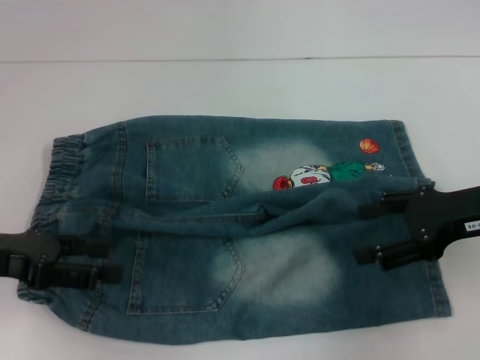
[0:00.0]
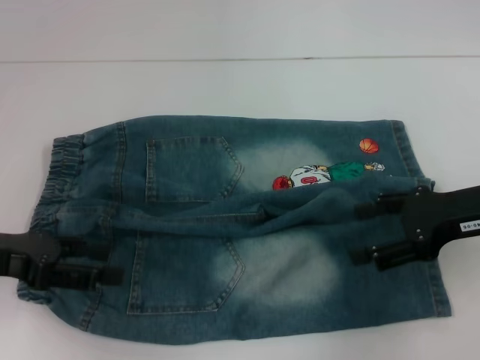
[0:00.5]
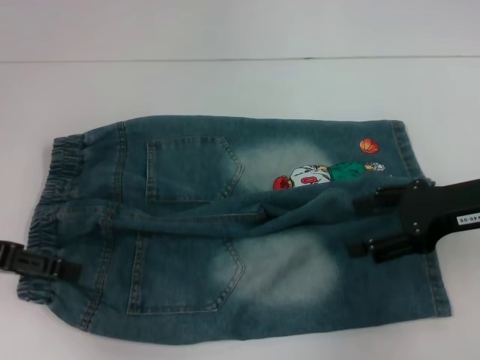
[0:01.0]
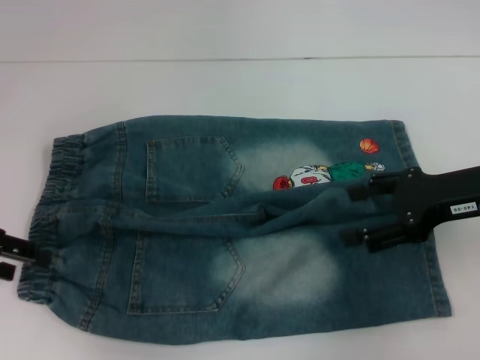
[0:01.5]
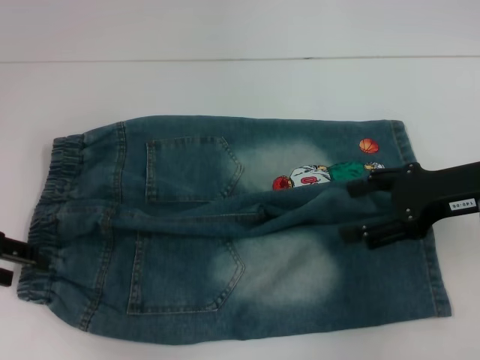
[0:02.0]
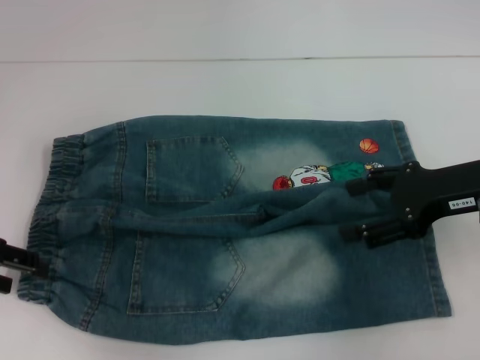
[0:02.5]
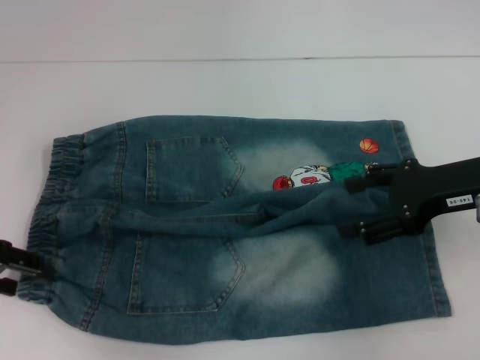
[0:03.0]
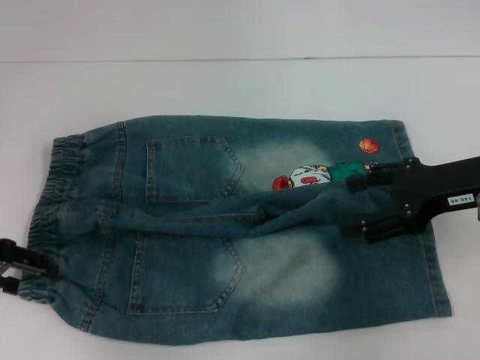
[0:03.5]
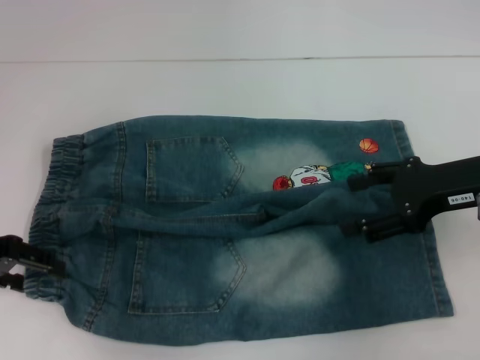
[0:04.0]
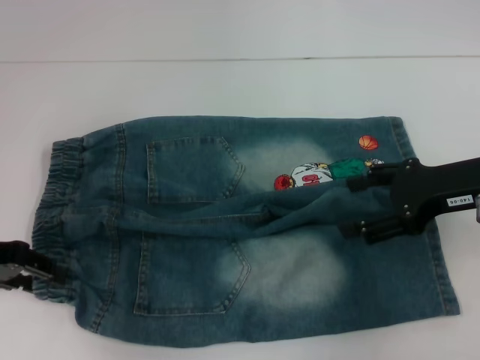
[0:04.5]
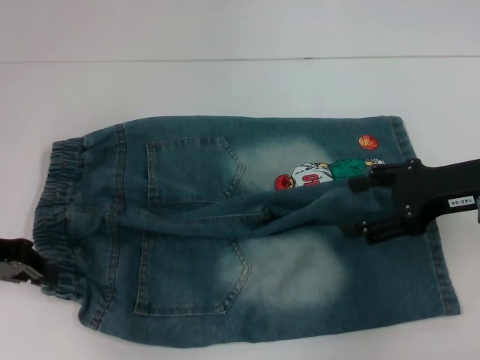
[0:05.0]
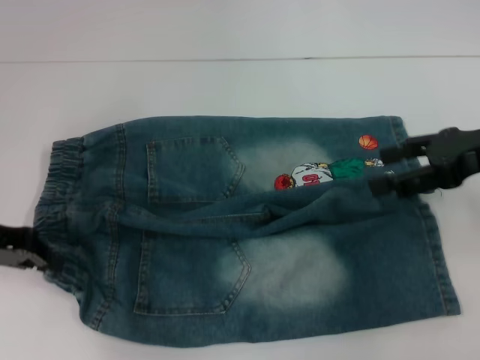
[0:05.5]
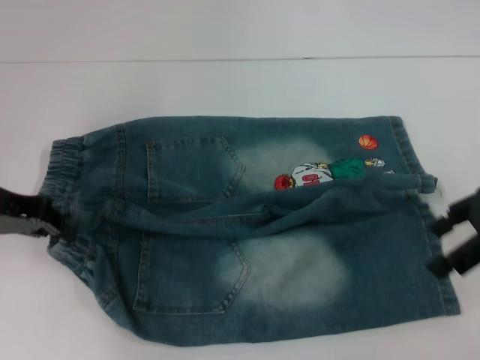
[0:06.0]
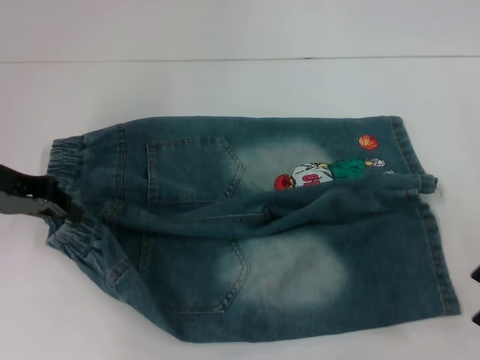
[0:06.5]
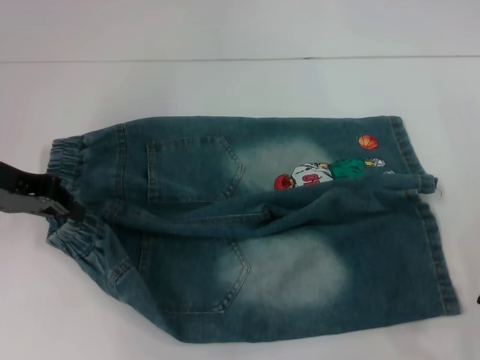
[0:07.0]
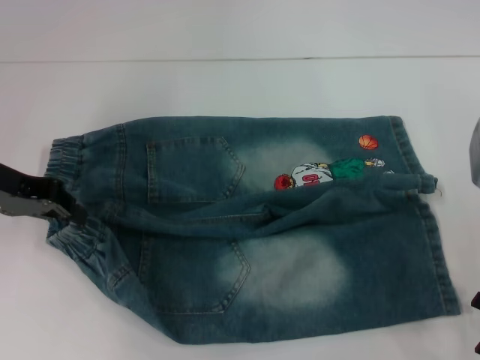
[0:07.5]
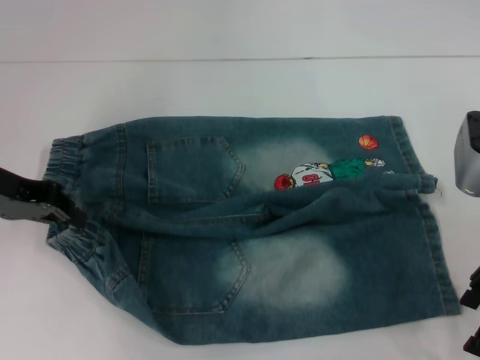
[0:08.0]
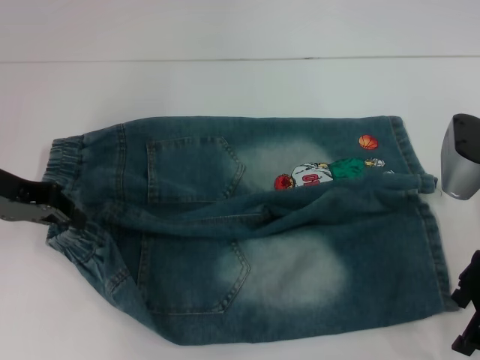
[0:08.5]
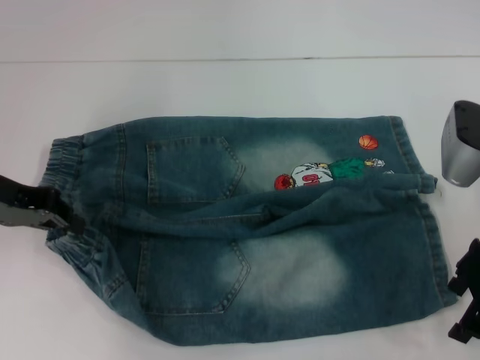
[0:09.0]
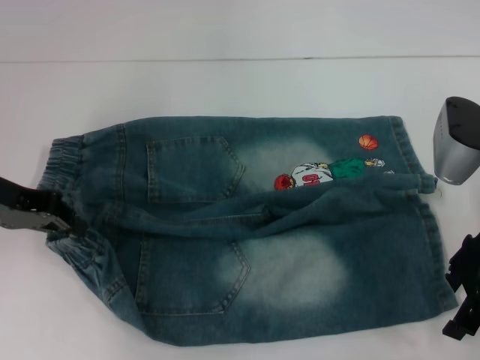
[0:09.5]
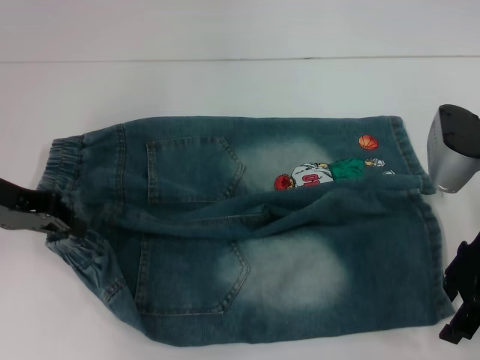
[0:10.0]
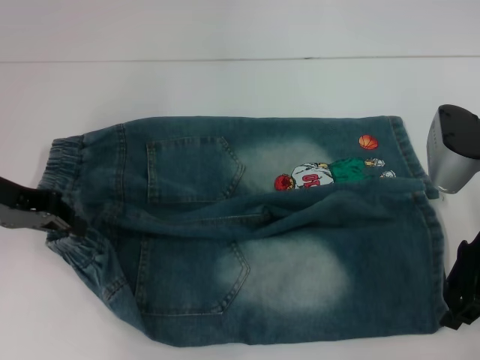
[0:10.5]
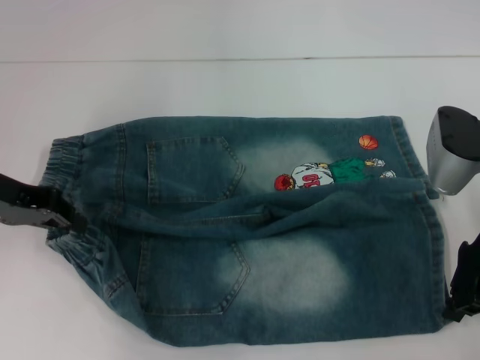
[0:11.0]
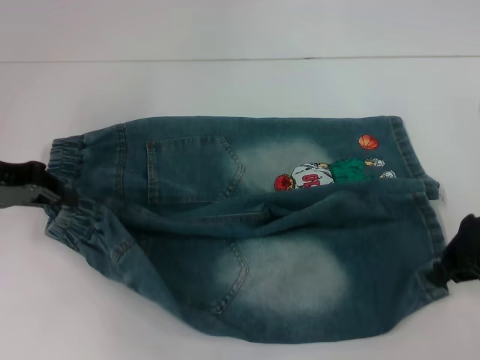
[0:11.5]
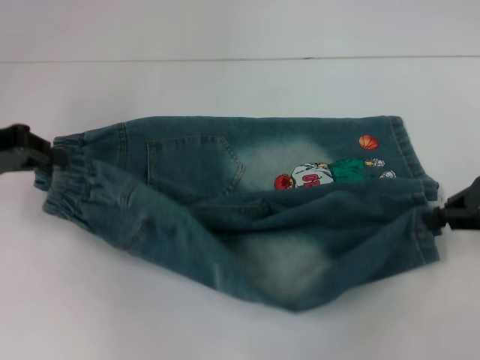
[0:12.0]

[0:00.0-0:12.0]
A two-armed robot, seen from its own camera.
Step, 0:00.0 to 0:04.0: Hold the lower left waistband with your left hand.
Step, 0:04.5 to 0:10.5: Grab the lower right pant leg with your right hand.
0:00.0 to 0:02.0: The left gripper shifts by about 5 cm.
0:02.0 to 0:04.0: The grippers move only a little.
0:04.0 to 0:06.0: The right gripper shifts by some 5 cm. The left gripper closes.
0:06.0 to 0:08.0: The right gripper shifts by approximately 5 cm.
0:08.0 to 0:10.0: There are only small adjustments of the grippers.
0:10.0 to 0:12.0: The right gripper travels to the right by about 10 cm, and closes up.

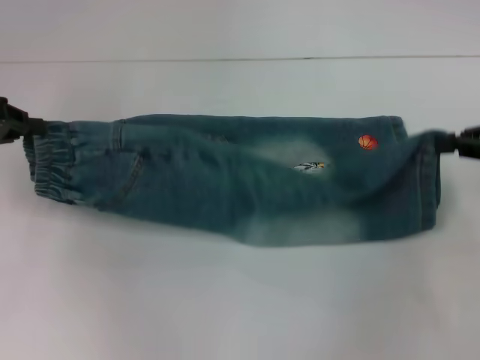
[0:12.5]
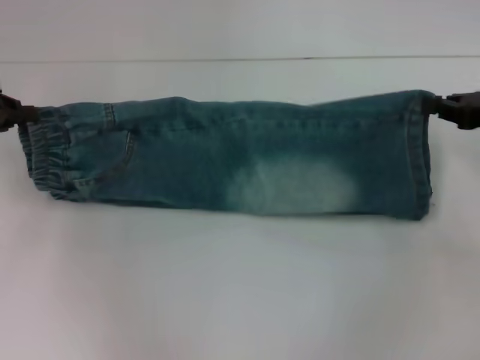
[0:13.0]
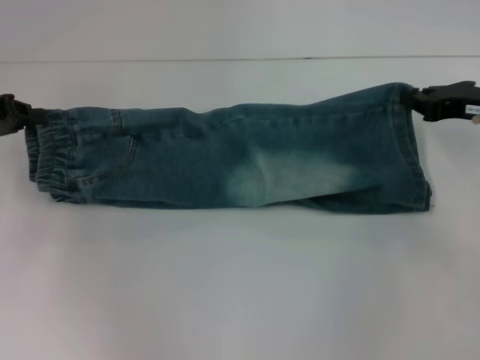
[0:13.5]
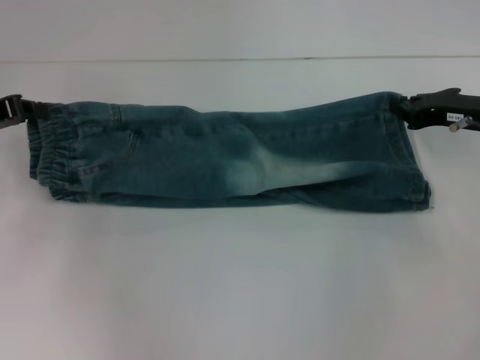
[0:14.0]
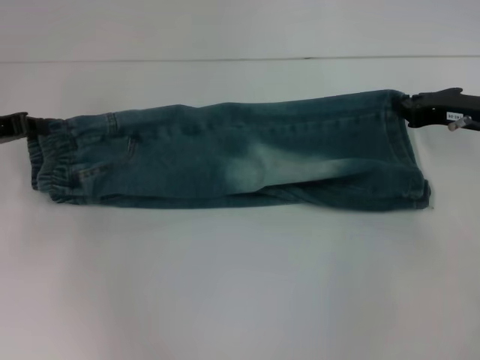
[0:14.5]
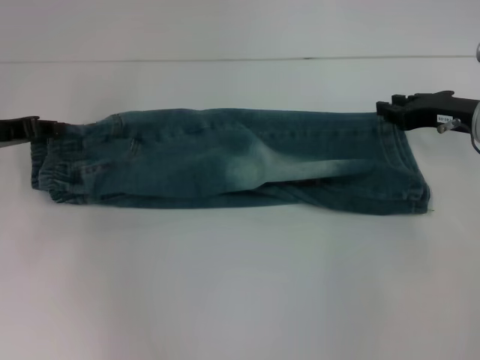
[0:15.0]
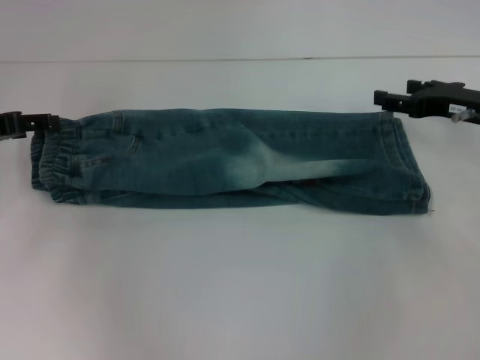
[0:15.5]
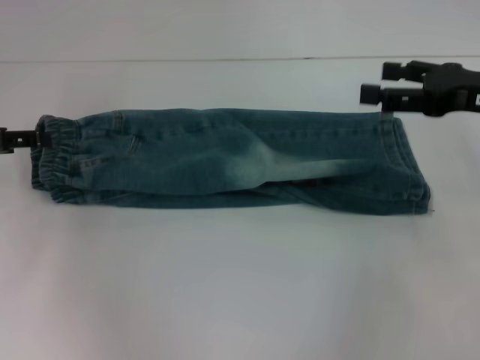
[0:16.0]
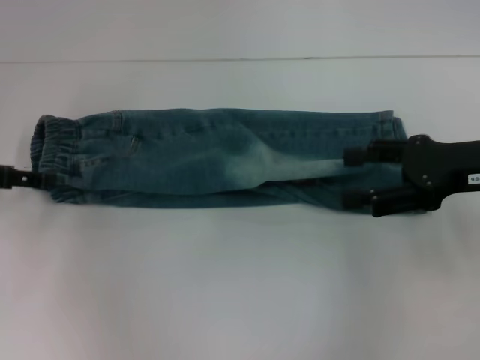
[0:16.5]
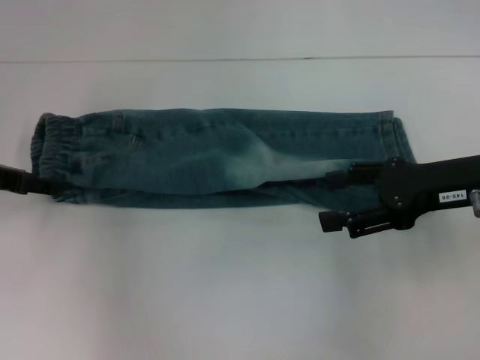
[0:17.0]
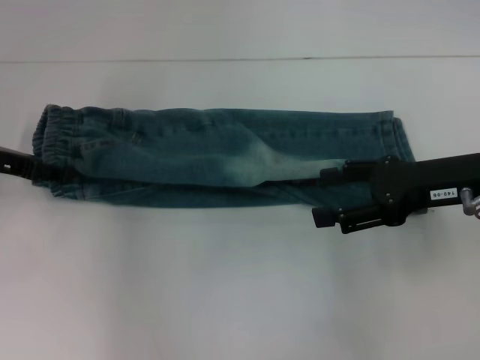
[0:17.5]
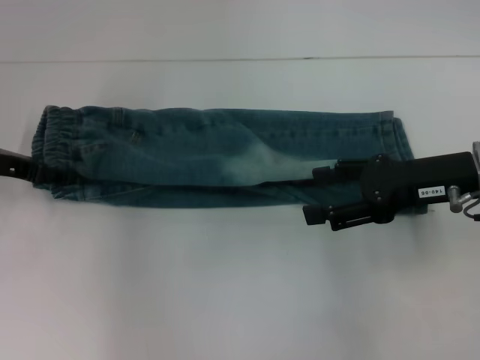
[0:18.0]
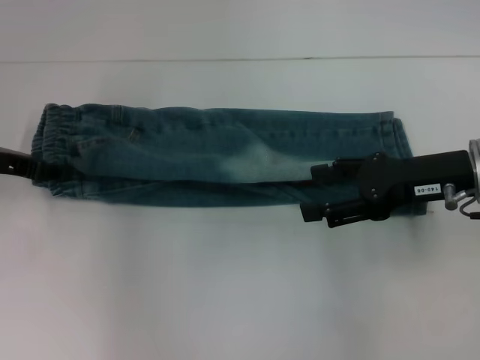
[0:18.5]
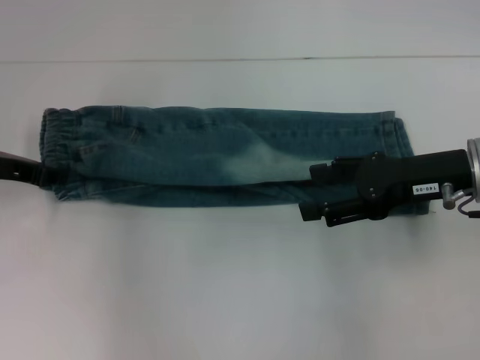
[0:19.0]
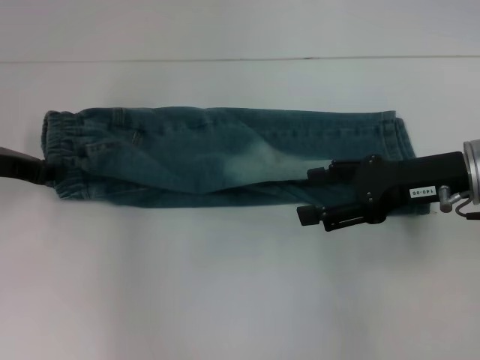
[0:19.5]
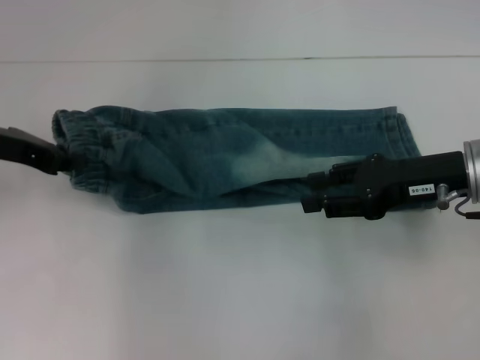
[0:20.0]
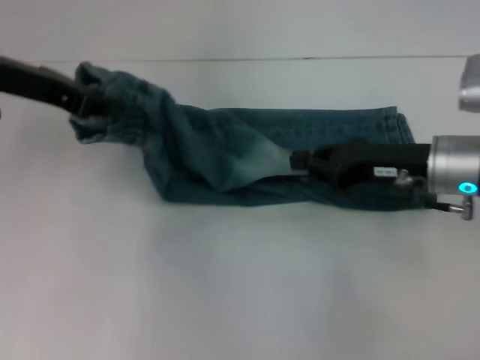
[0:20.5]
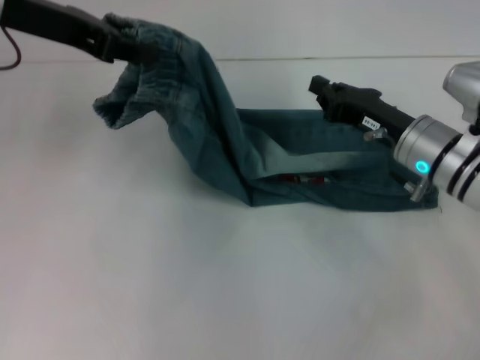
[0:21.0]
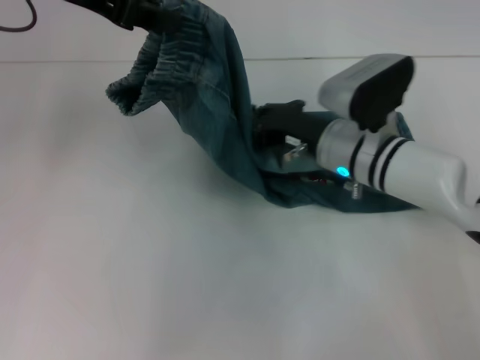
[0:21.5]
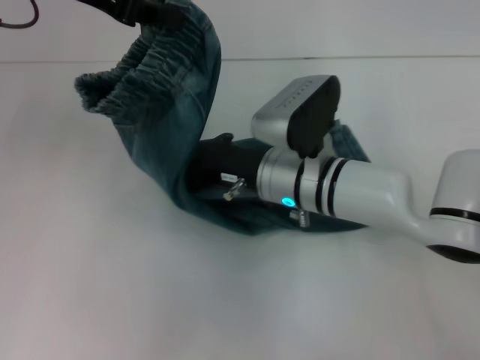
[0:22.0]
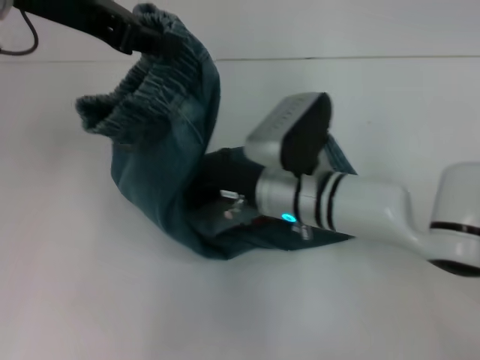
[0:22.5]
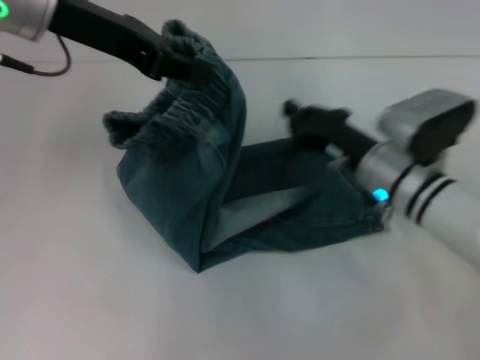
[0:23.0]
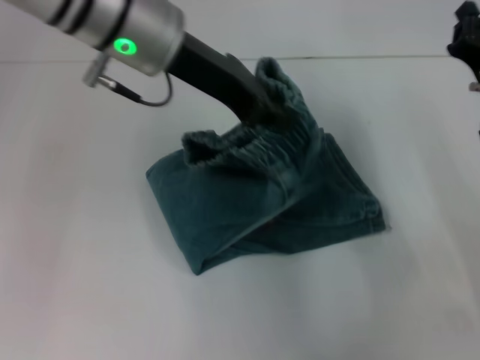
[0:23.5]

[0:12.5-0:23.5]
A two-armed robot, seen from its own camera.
Step, 0:12.5 to 0:15.0: Fold upward with your right hand.
Step, 0:15.5 to 0:18.0: Hold the waistband with your left hand.
Step, 0:18.5 to 0:22.5: Press the middle of the pants with your right hand.
0:12.5 to 0:14.5: The left gripper changes place by roughly 5 cm. The right gripper moves downward, to the left and forward, about 10 cm.
0:14.5 to 0:16.0: The right gripper goes roughly 5 cm upward, and opens its fingers. Meanwhile the left gripper opens up.
0:16.0 to 0:18.0: The right gripper heads to the left, covering approximately 5 cm. The left gripper changes place by about 5 cm.
0:18.0 to 0:20.0: The left gripper travels upward by approximately 5 cm, and closes.
0:20.0 to 0:21.5: The right gripper heads to the left and downward, covering roughly 15 cm, and closes up, while the left gripper goes approximately 15 cm upward and to the right.
0:21.5 to 0:23.5: The right gripper shifts approximately 15 cm to the right. The left gripper moves to the right and downward, roughly 10 cm.

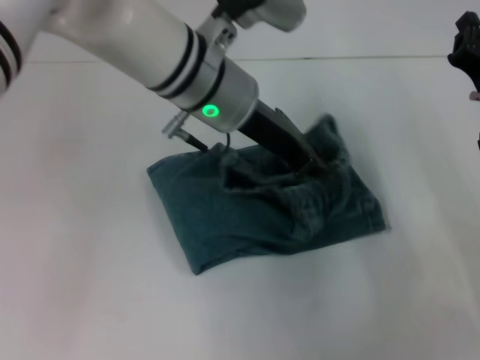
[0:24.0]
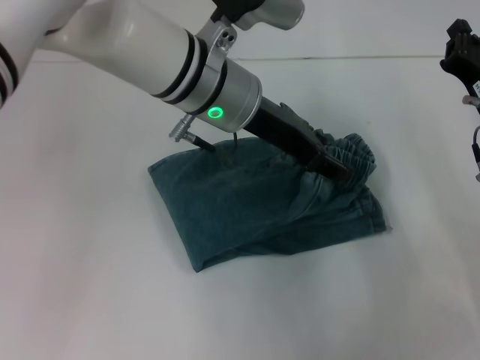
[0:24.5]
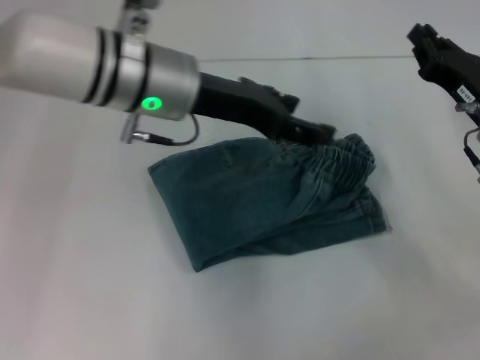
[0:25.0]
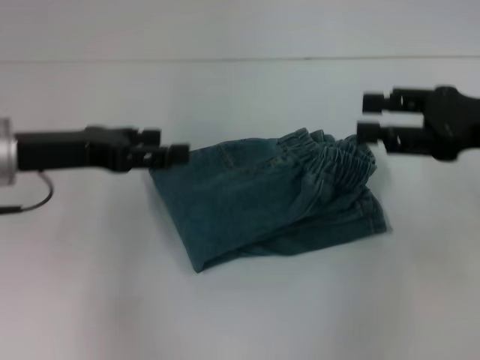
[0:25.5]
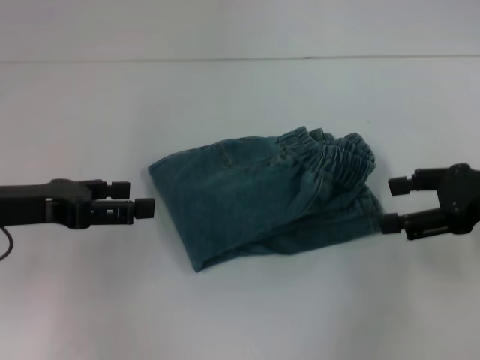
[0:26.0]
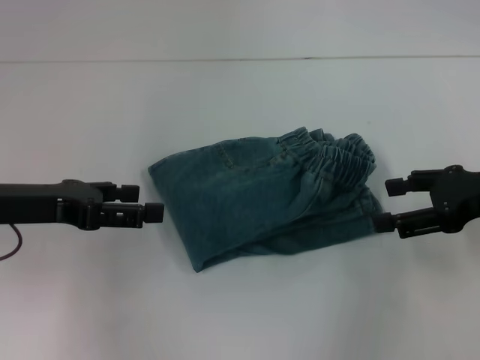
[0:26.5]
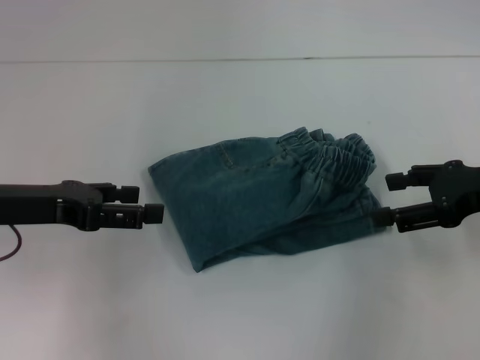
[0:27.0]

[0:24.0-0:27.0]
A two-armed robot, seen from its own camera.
0:24.0 to 0:25.5: The left gripper moves to the left, approximately 20 cm, and opens up. The right gripper is displaced upward by approximately 10 cm, and opens.
0:25.5 to 0:27.0: The right gripper opens.
